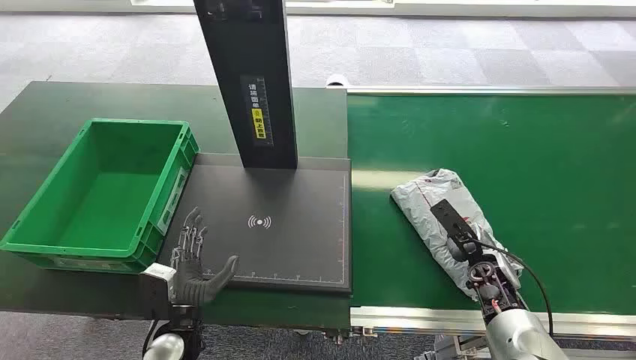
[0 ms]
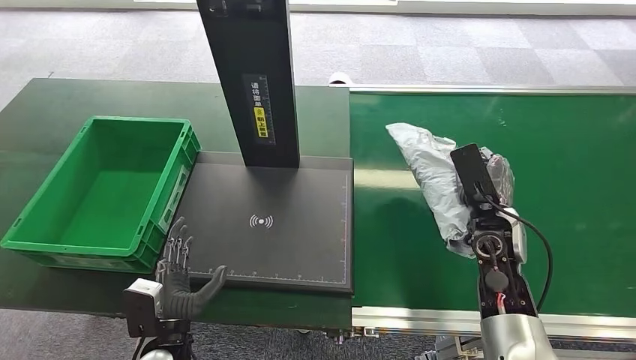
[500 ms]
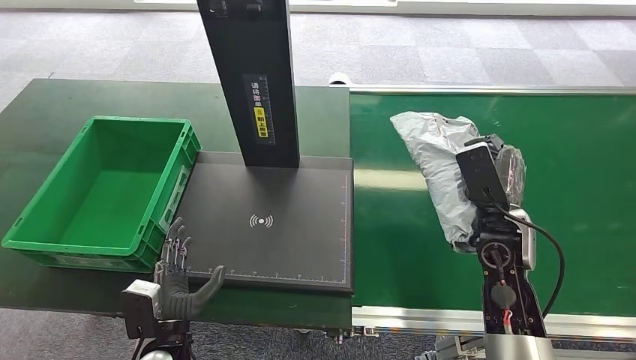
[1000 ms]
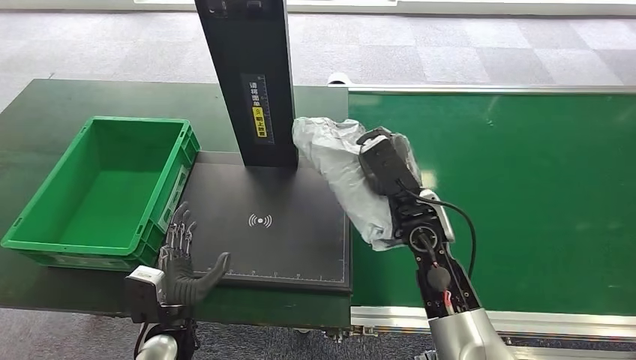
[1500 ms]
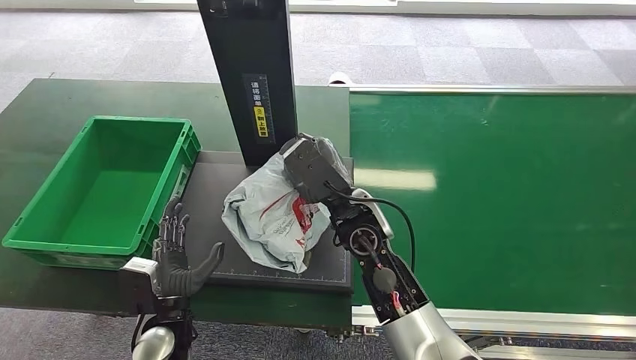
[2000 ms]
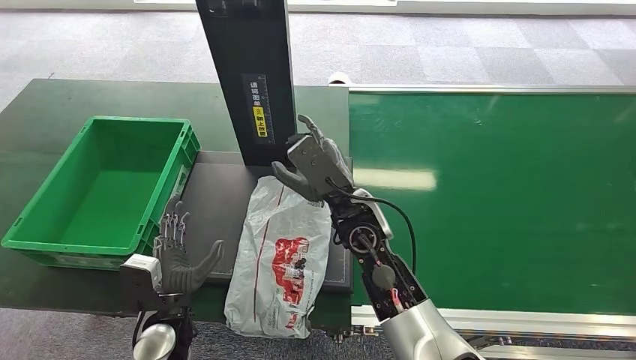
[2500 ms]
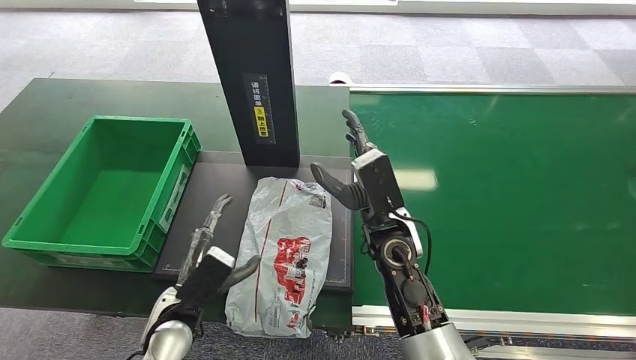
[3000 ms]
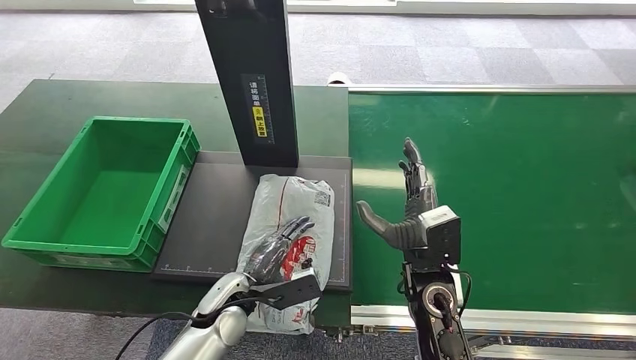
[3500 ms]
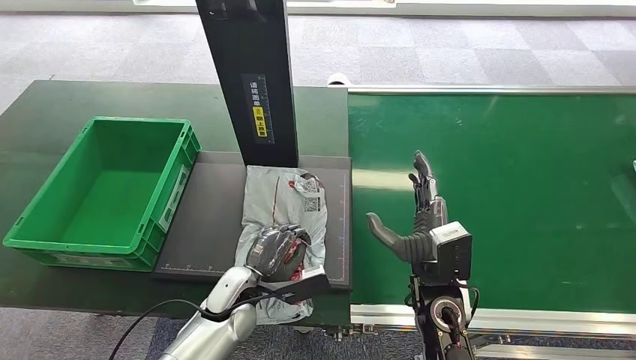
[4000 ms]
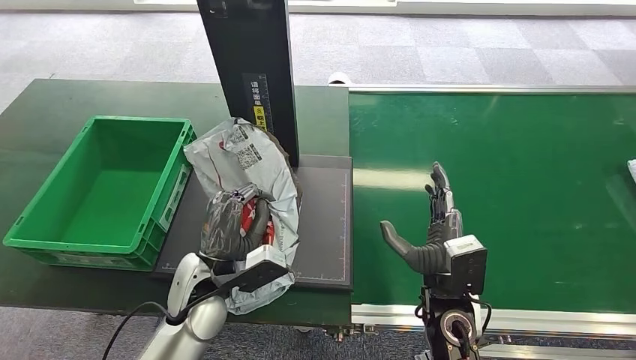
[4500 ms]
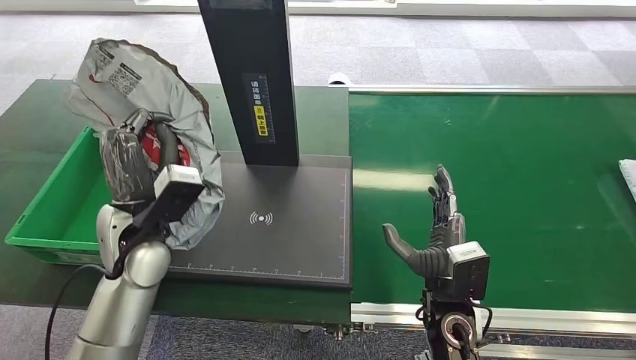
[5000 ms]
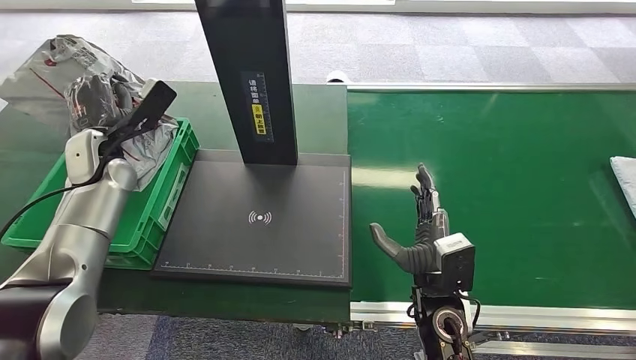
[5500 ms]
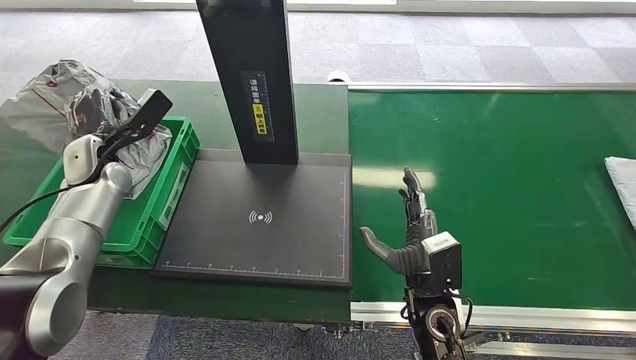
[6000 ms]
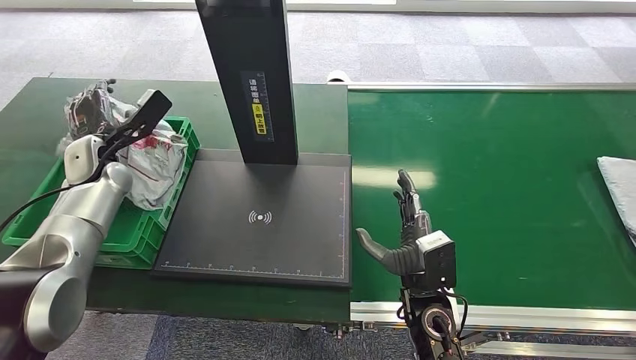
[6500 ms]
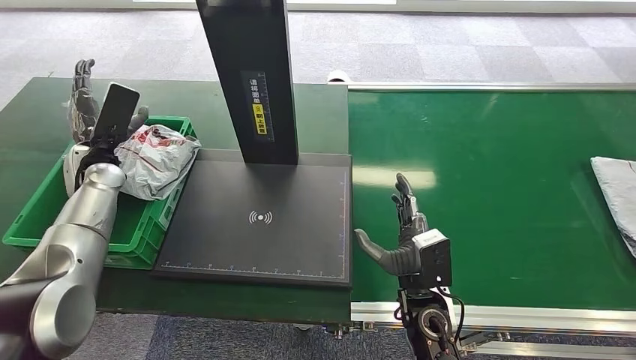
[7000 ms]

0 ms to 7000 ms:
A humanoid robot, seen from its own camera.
Task of the whole recording: Weigh the package on the weighing device and place it in the left basket.
Step, 0 ms to 500 ms: Pick up the package from the conveyor belt.
Step, 1000 ms to 3000 ms: Place the package onto the inbound machine.
Step, 3500 ms to 4500 ms: Pick up the package from the inbound machine.
Step, 5000 ms to 7000 ms: Place the package into the parcel locker.
2000 ms to 3500 ms: The left hand moves to the right and forward, some 10 cm, while the right hand moves to the right, backward and downward, about 15 cm.
